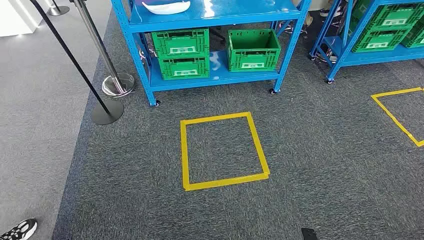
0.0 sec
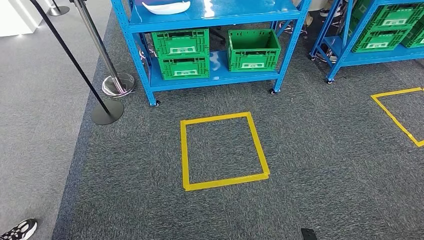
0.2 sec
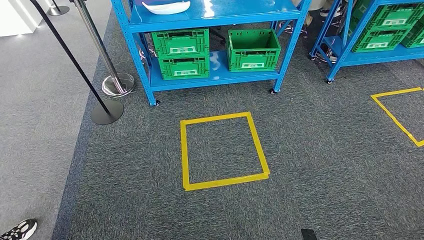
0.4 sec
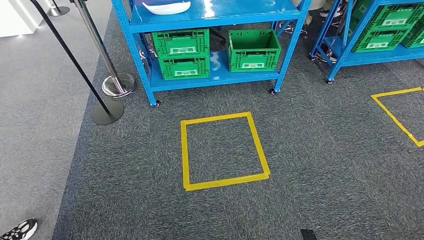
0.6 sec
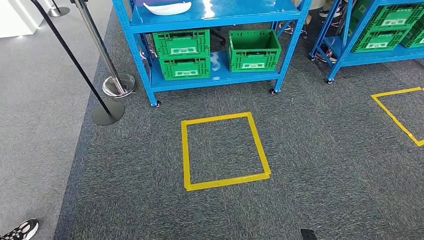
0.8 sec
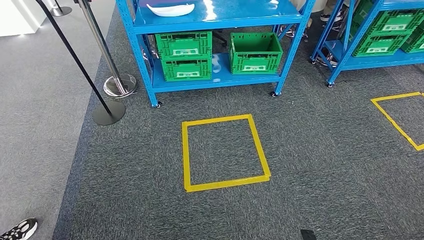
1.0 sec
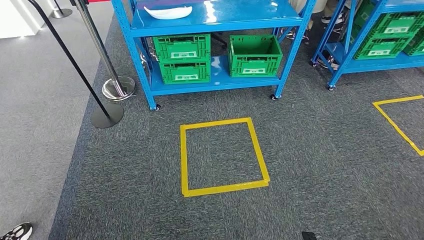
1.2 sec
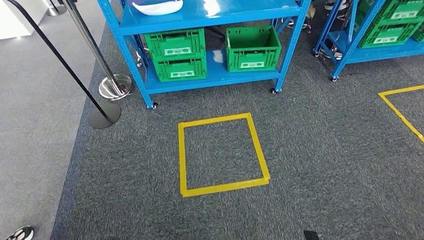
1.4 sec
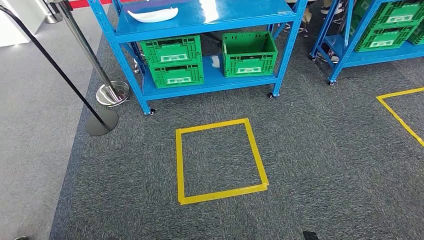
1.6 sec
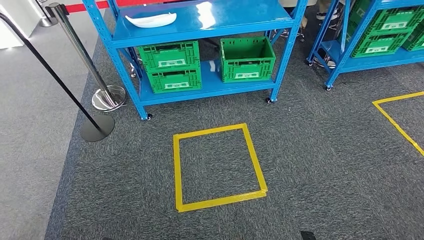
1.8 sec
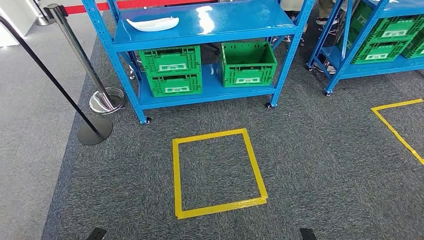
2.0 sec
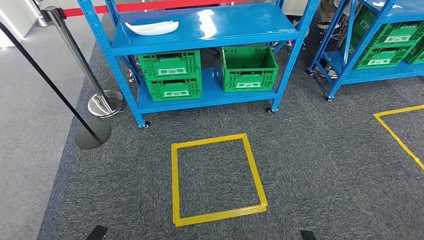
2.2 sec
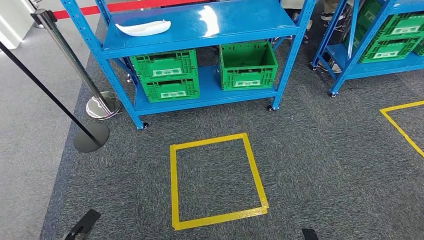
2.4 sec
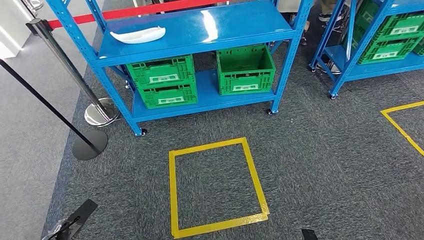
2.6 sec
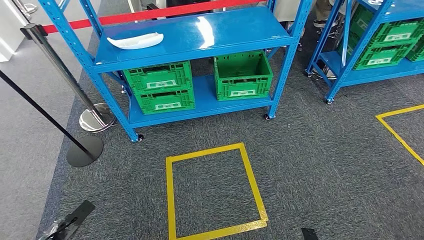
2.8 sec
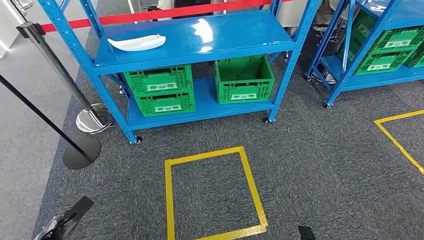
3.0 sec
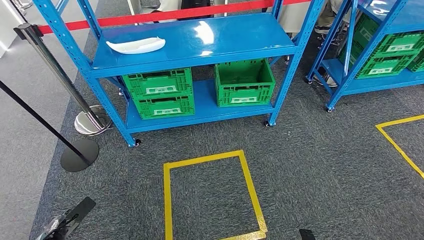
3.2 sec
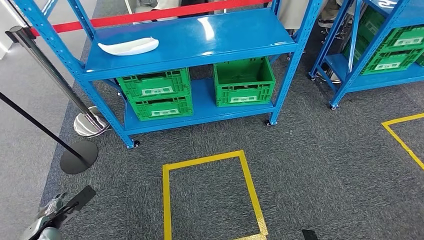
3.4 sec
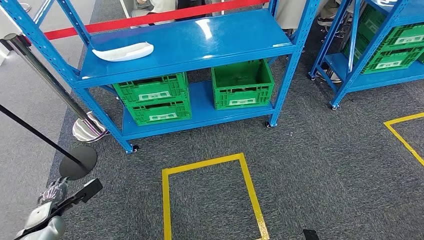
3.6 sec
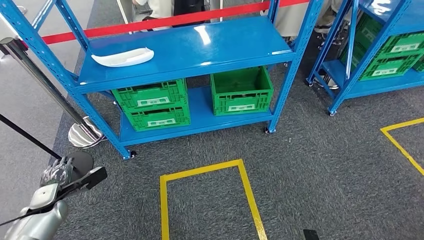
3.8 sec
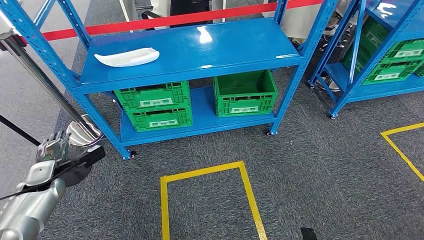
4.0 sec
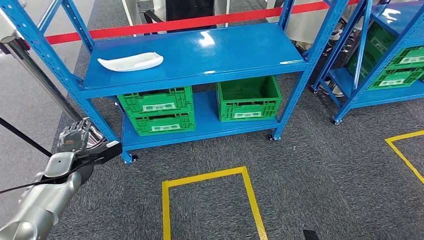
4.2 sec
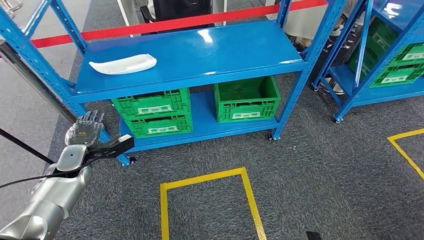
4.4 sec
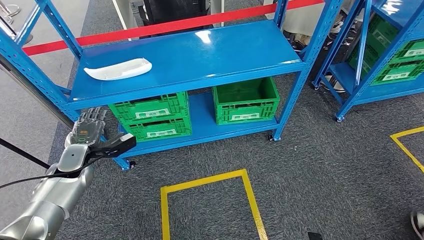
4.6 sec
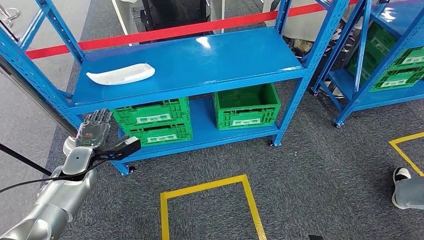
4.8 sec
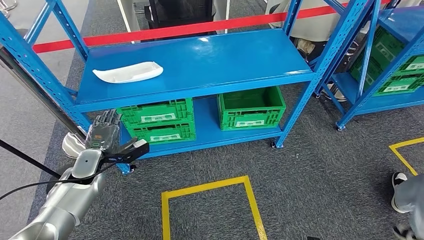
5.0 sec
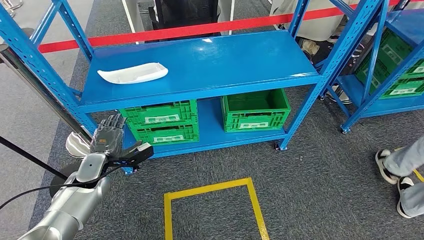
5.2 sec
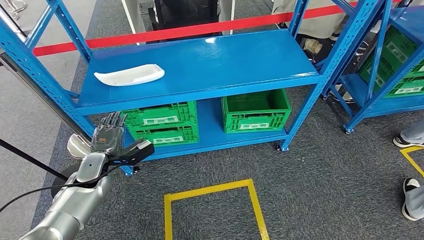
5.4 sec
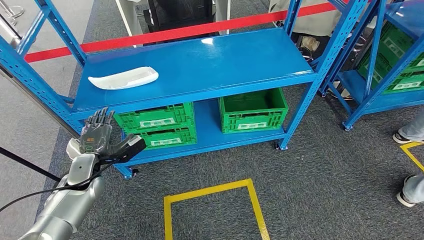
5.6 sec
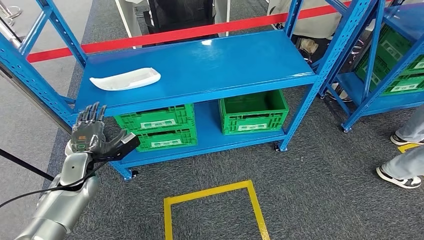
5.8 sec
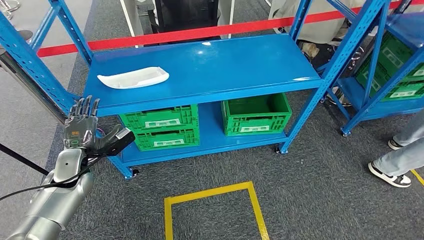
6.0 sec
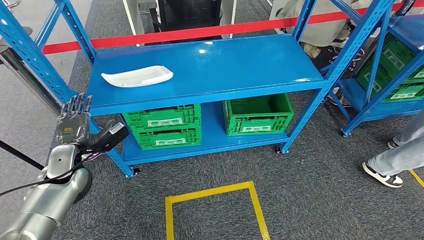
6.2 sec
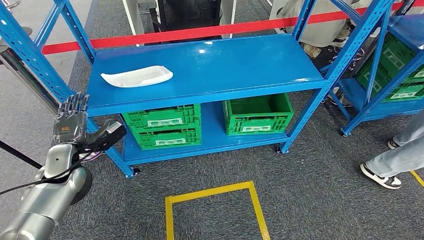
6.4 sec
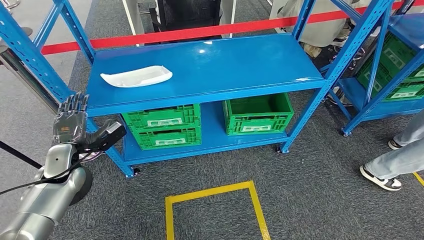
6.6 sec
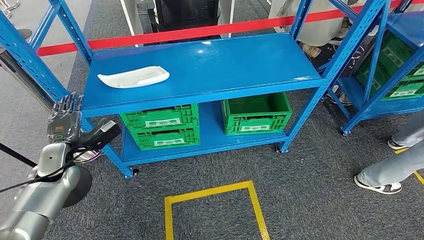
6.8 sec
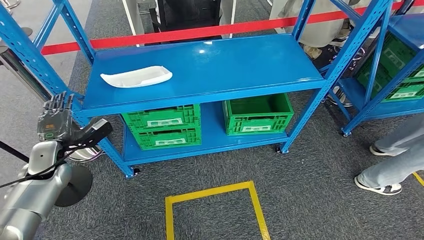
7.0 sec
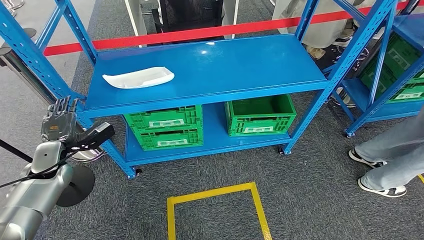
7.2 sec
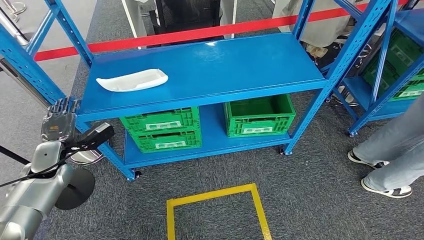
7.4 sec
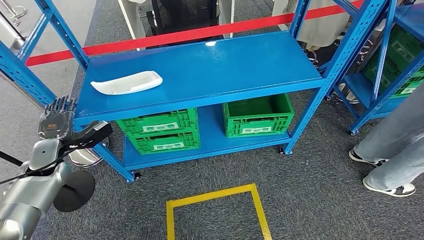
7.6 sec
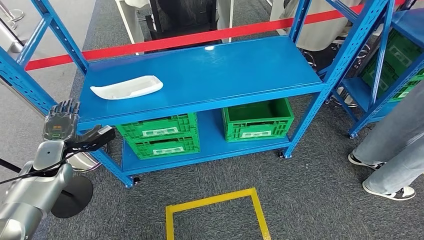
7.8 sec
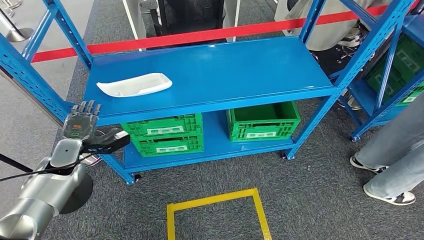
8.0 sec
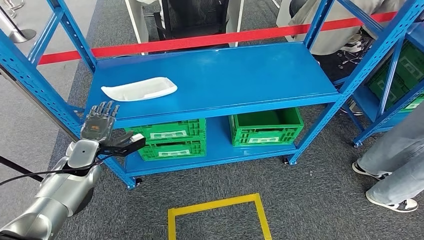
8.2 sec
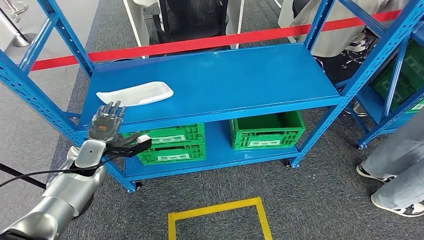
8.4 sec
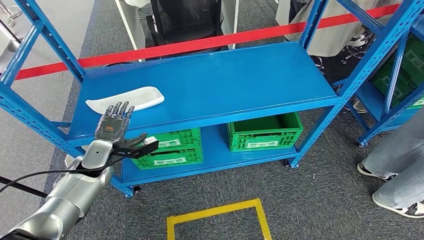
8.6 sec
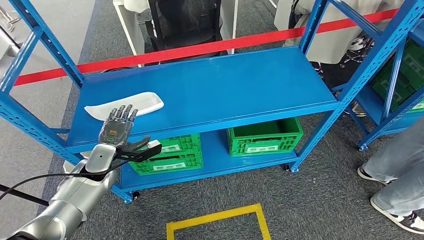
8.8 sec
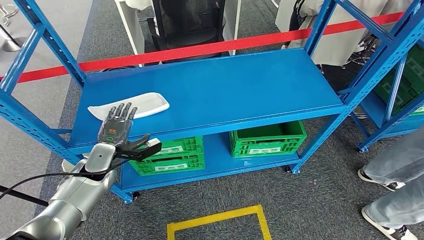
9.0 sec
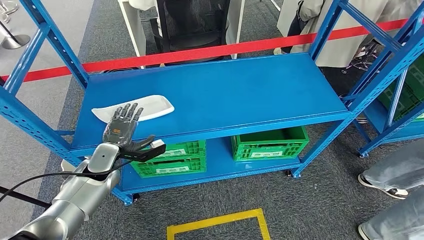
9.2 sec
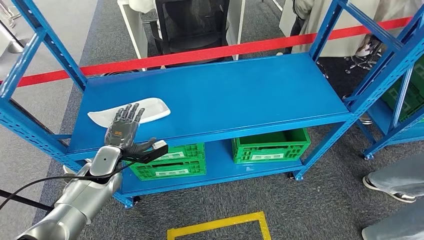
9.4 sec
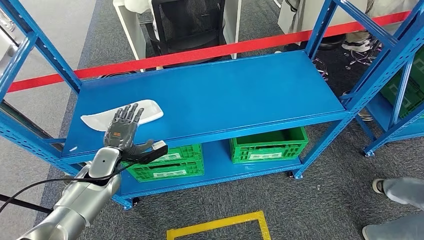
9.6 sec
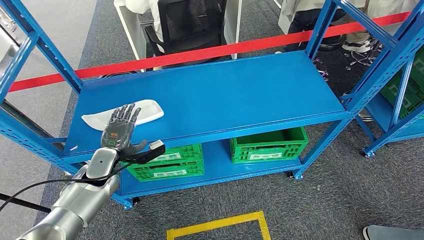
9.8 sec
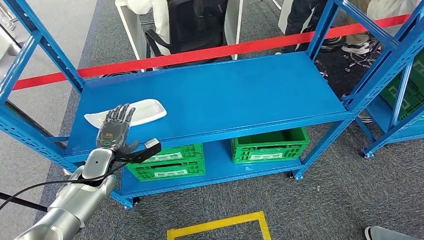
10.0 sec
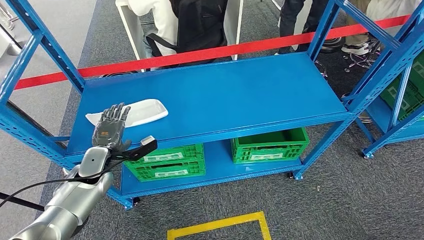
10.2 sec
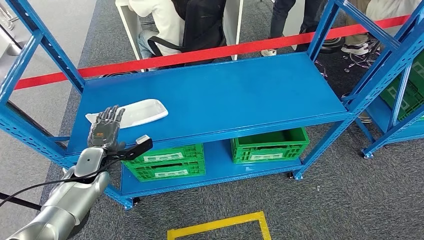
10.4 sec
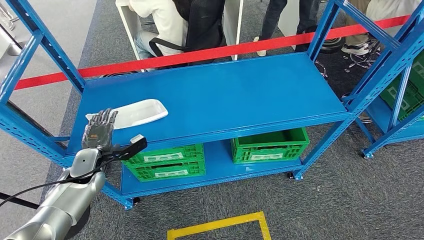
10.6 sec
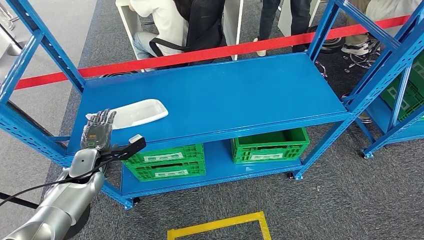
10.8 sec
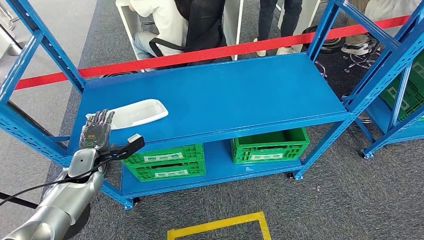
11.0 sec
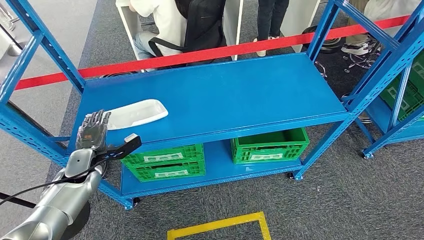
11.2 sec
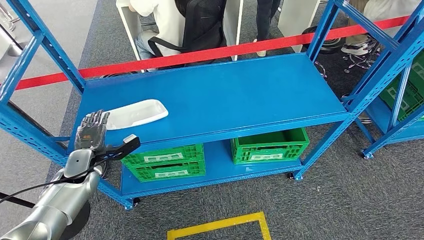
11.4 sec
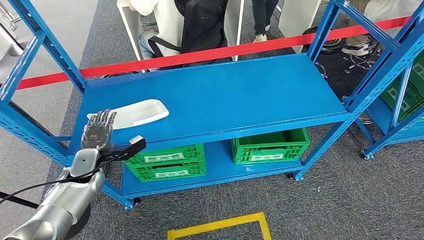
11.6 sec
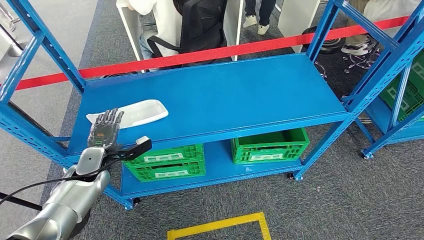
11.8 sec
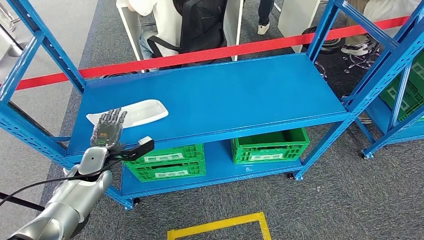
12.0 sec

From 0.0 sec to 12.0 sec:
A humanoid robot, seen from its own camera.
From 10.4 sec to 12.0 sec: The hands make only small movements.

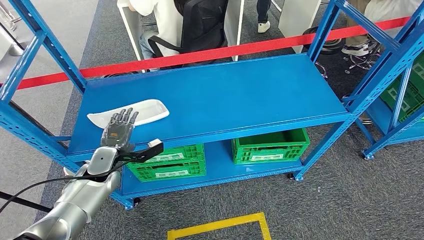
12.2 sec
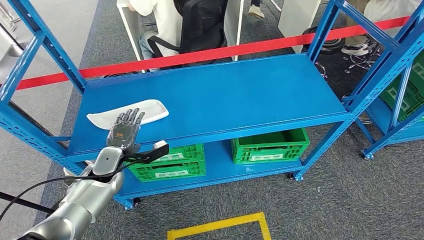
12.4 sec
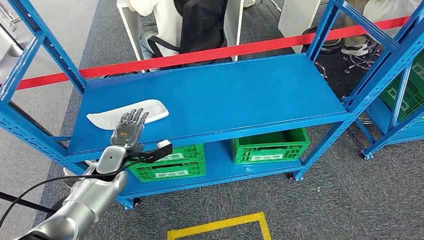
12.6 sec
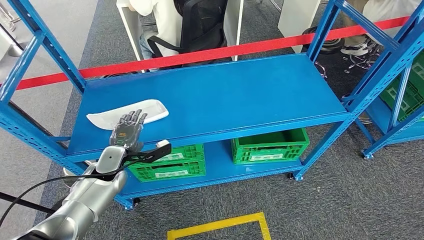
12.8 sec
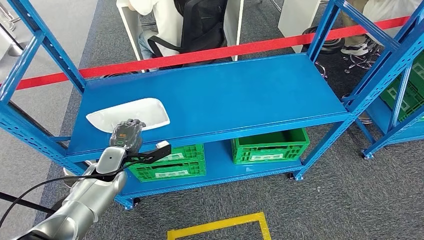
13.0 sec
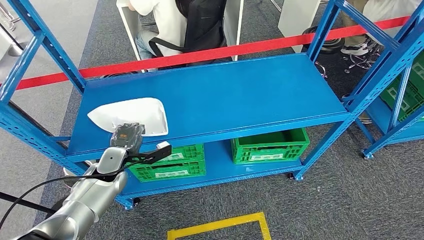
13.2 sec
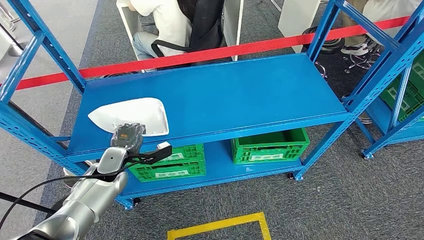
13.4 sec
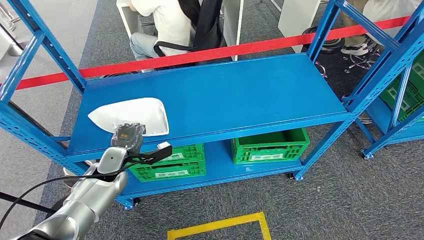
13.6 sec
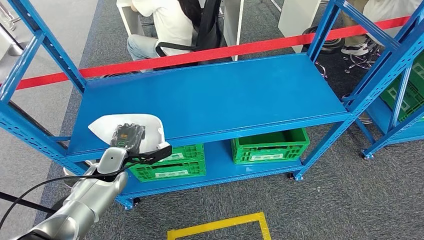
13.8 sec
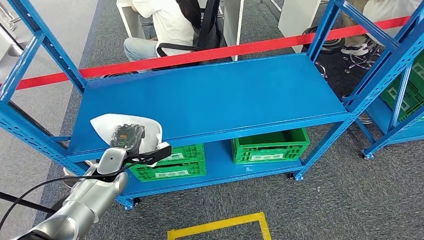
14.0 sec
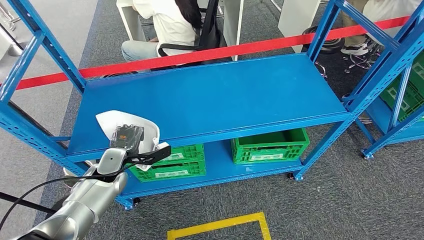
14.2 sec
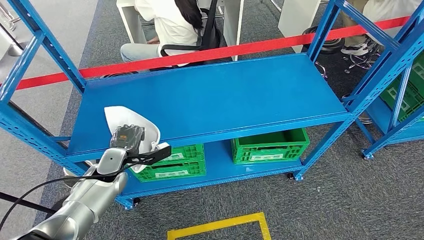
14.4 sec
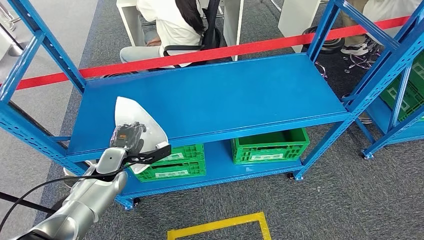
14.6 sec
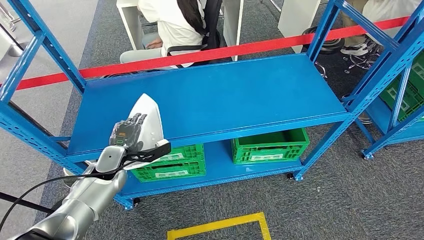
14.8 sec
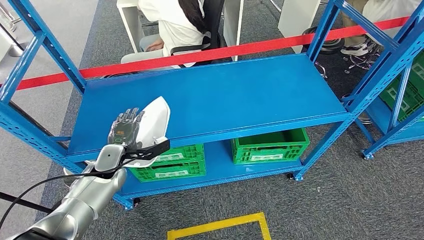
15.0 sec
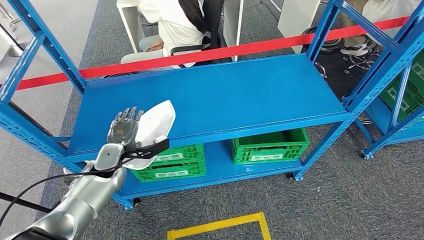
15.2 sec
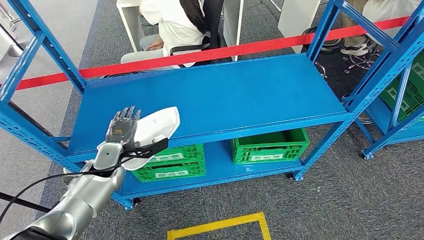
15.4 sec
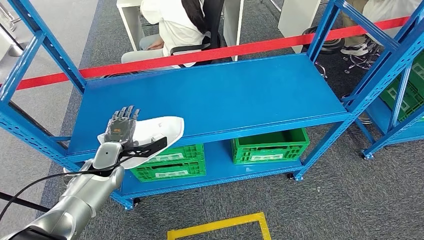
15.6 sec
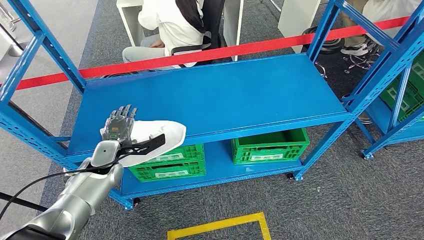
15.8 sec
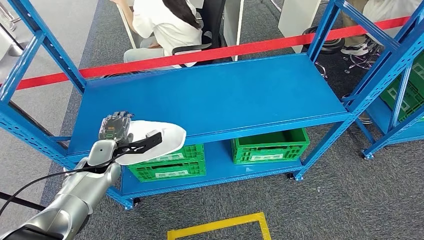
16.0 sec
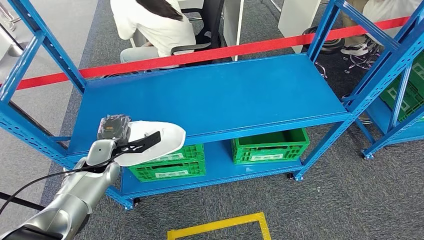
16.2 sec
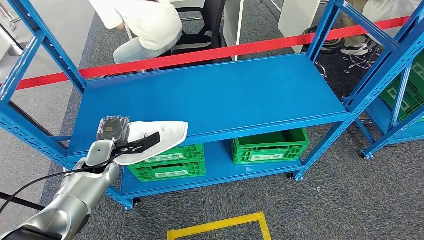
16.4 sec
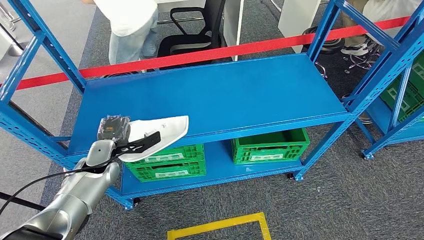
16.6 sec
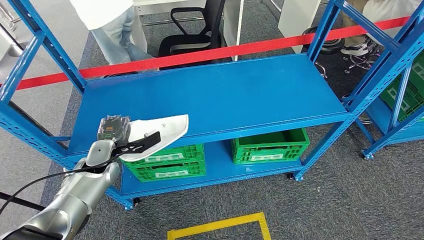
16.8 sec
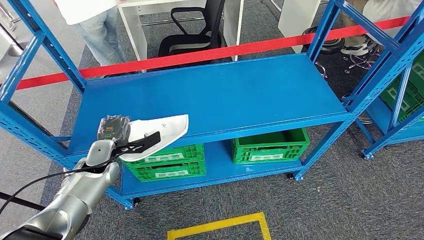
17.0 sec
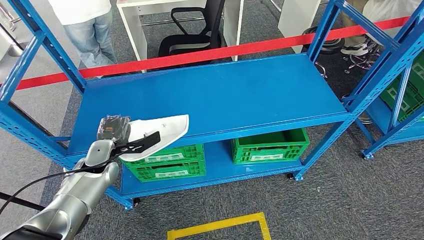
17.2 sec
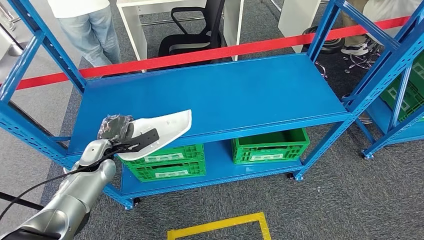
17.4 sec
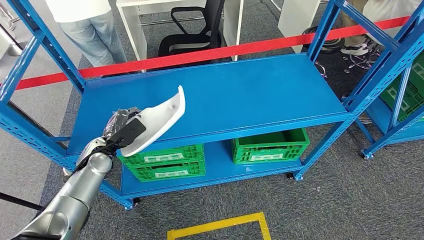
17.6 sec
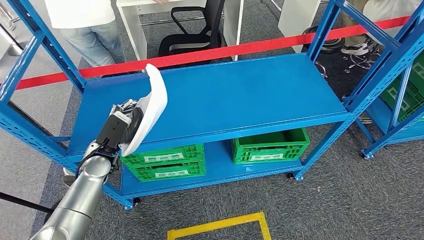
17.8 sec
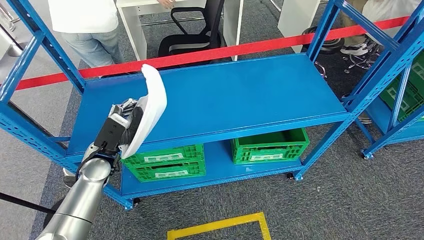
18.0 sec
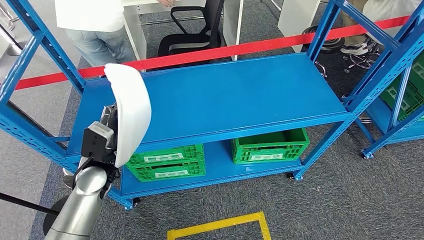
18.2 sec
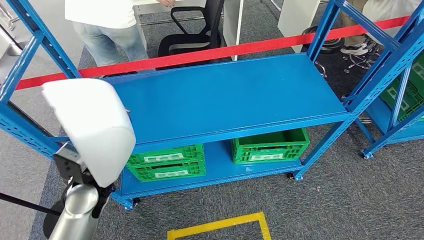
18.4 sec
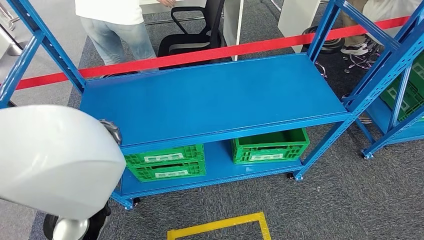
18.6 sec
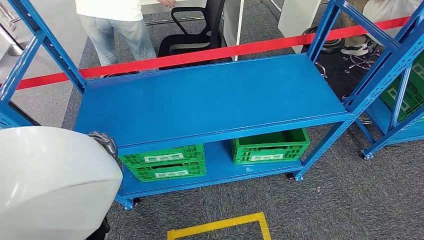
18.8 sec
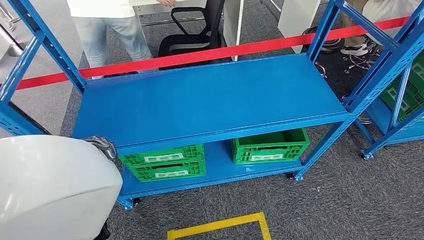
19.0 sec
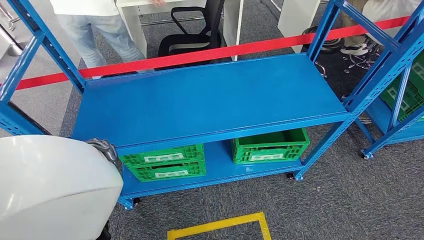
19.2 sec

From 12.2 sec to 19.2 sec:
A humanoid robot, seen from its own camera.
From 12.2 sec to 13.6 sec: There are only small adjustments of the hands.
From 13.6 sec to 15.0 sec: Neither hand changes place.
From 15.0 sec to 16.4 sec: The hands make only small movements.
From 17.8 sec to 19.2 sec: The left hand goes some 15 cm backward.
